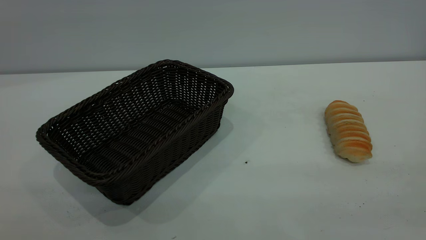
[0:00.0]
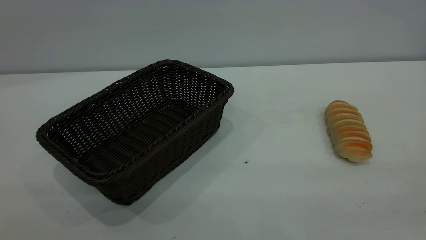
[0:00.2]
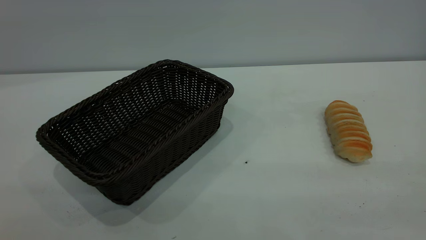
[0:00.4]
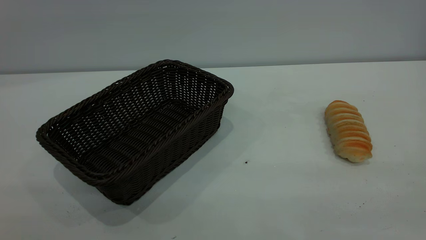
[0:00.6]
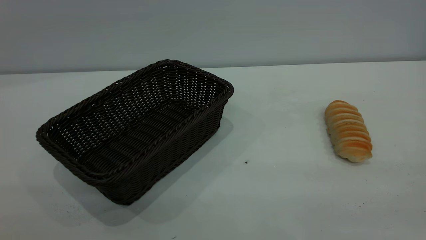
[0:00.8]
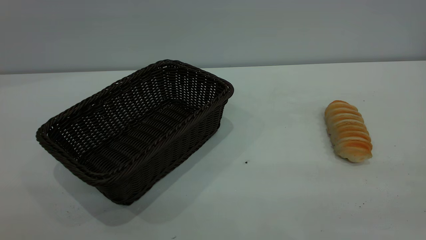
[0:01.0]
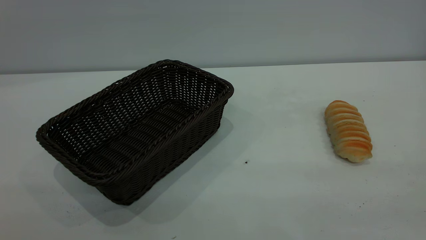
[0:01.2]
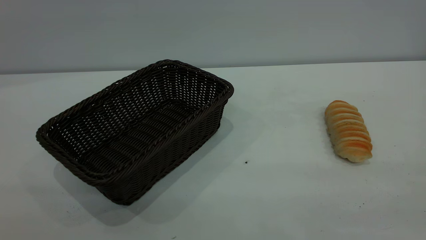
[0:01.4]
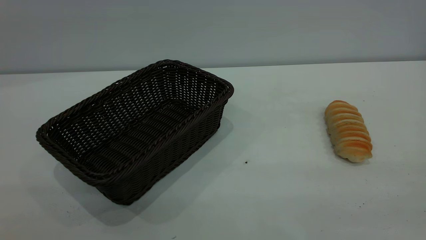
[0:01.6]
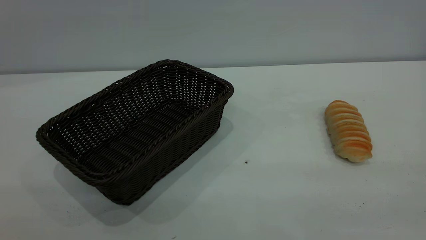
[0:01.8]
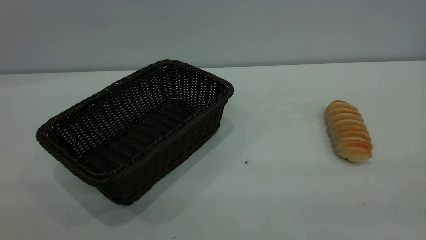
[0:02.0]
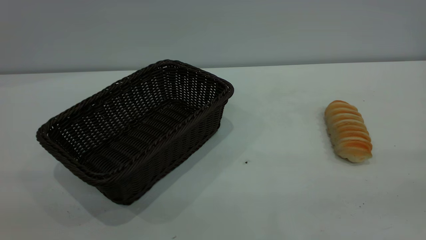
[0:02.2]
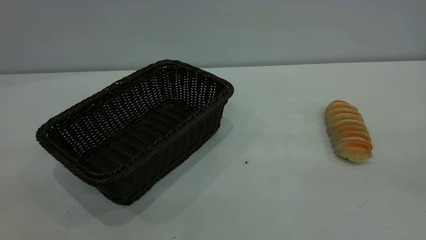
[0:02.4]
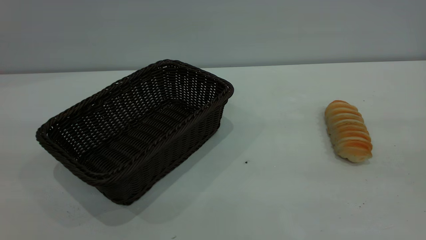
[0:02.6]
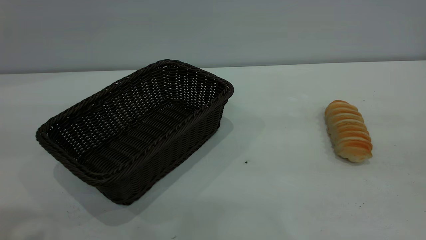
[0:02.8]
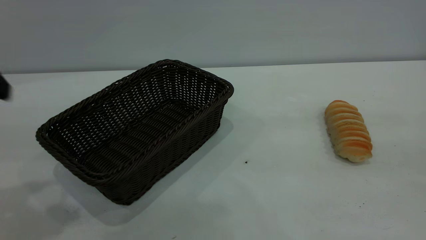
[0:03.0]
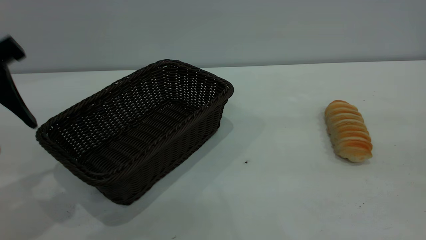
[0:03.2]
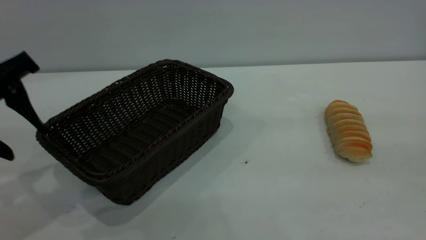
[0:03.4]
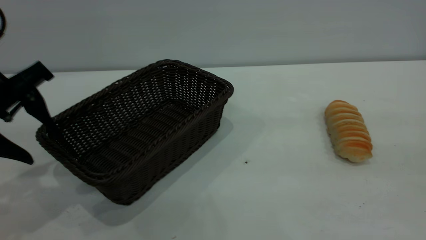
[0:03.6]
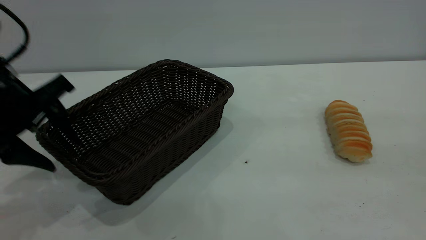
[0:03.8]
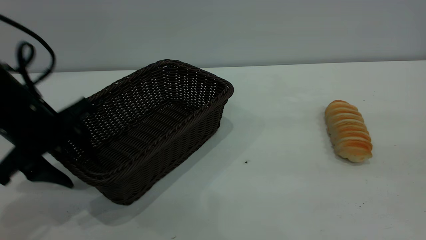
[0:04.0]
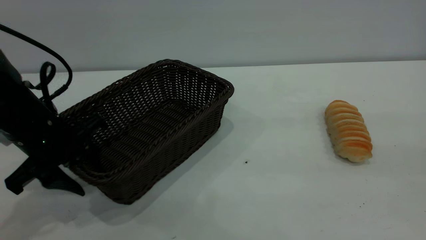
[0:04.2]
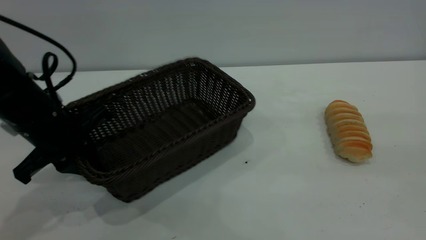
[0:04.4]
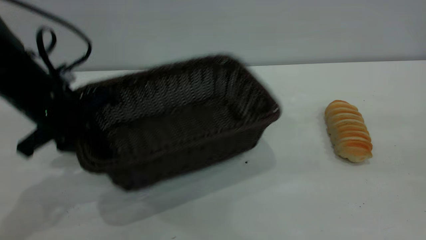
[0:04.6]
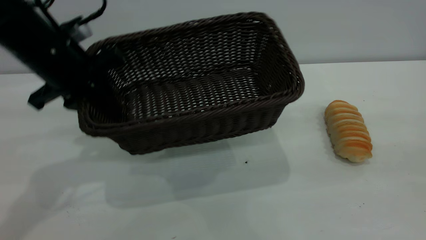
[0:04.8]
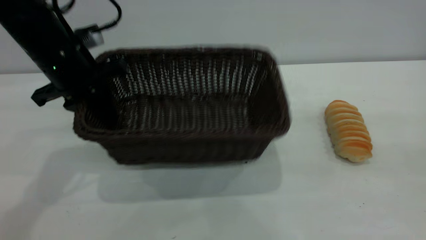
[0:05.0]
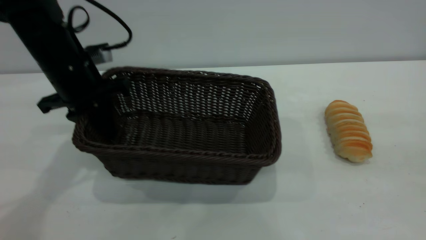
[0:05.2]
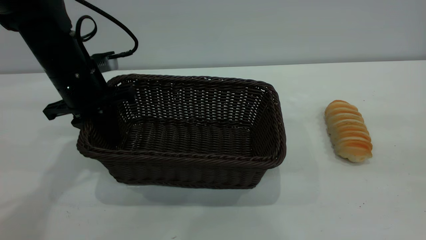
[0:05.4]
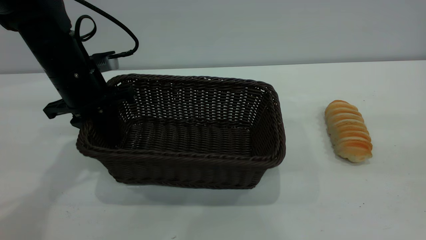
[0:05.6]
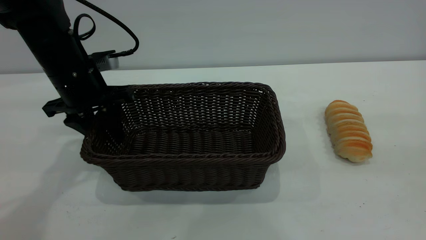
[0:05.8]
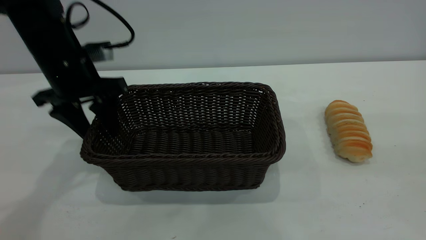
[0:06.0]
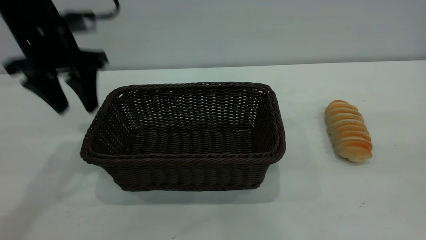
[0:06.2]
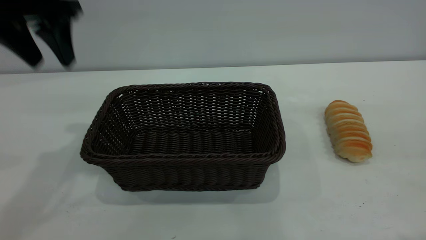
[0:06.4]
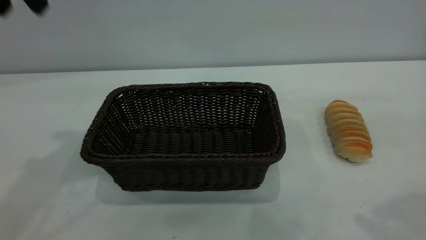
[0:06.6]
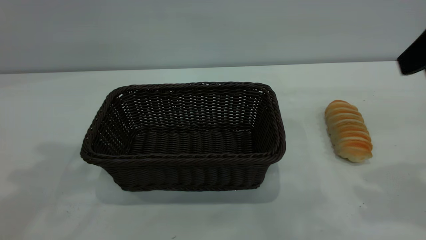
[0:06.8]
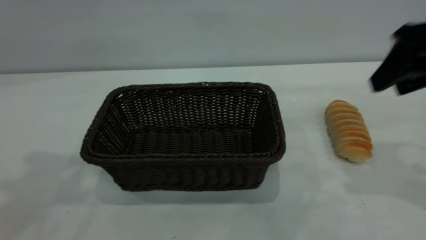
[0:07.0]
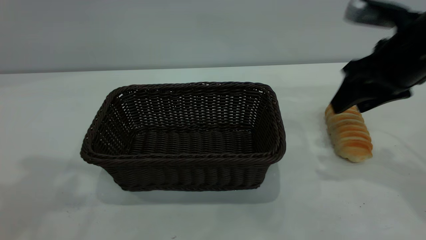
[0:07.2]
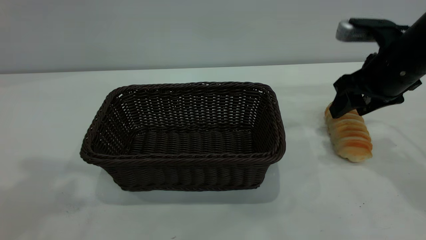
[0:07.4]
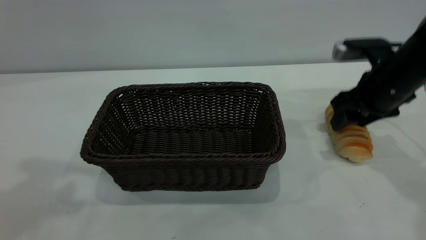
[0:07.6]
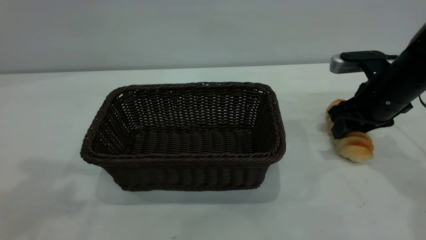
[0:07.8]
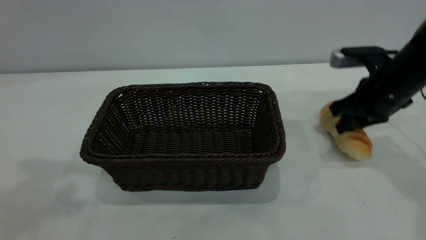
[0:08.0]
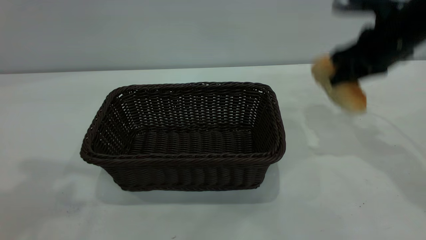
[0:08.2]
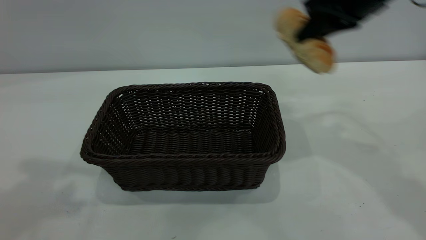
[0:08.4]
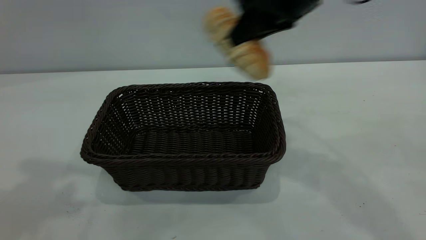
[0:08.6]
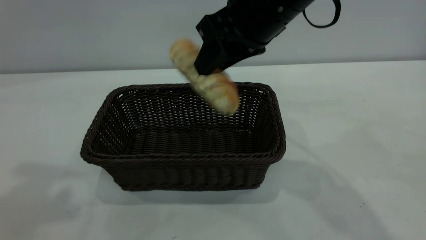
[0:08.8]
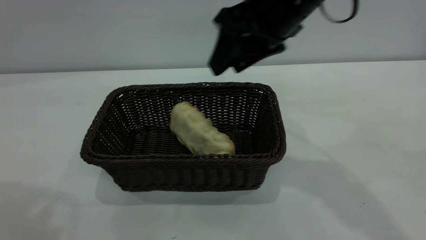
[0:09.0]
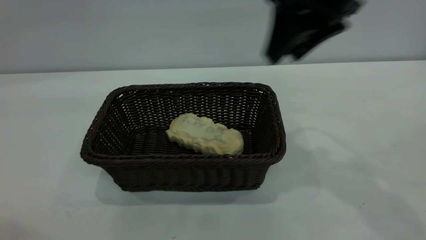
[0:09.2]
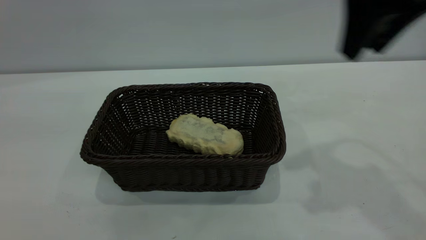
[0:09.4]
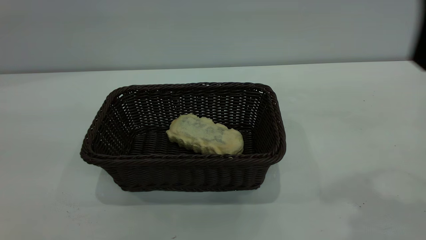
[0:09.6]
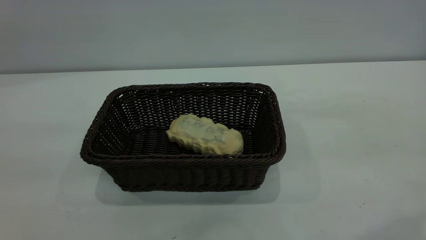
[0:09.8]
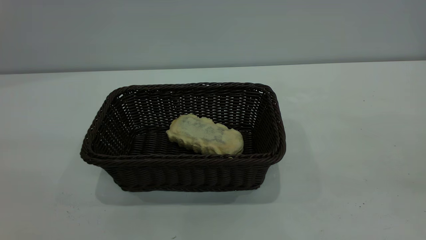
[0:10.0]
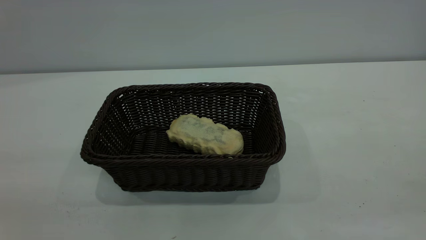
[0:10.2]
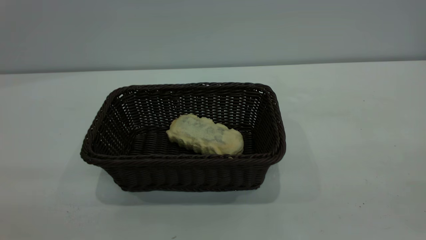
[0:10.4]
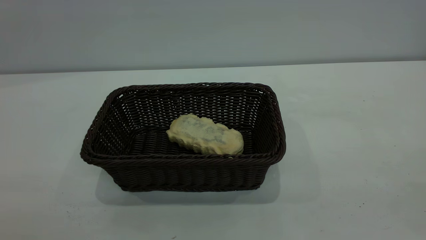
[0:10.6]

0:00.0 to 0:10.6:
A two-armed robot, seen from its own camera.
Task of the whole recording: One hand grasps the black basket and places it in the middle of the table, while the other hand picks up the long bread and puts it into the black basket.
Step, 0:00.0 to 0:06.2: Move the basket to the center of view.
Step, 0:08.4 to 0:09.2: place the bread into the basket.
0:00.0 to 0:01.6: Both grippers stay about where they are.
0:03.0 to 0:04.6: The left gripper travels downward and forward by some 15 cm, and closes up.
0:04.6 to 0:06.0: The left gripper is displaced forward by some 5 cm, and opens up.
0:06.0 to 0:07.6: The left gripper shifts about 30 cm upward and backward, while the right gripper goes roughly 40 cm forward and downward.
0:07.6 to 0:09.0: The left gripper goes approximately 5 cm backward, while the right gripper goes about 20 cm upward and to the left, and closes, then reopens.
0:09.0 to 0:10.6: The right gripper goes some 35 cm backward and to the right; the left gripper is displaced backward and downward by roughly 25 cm.

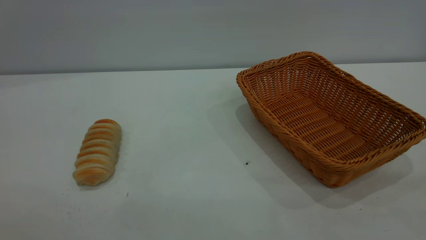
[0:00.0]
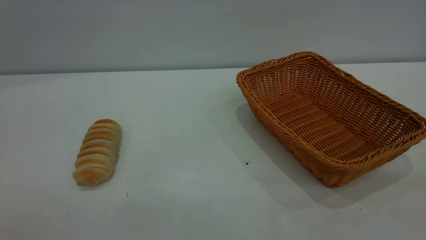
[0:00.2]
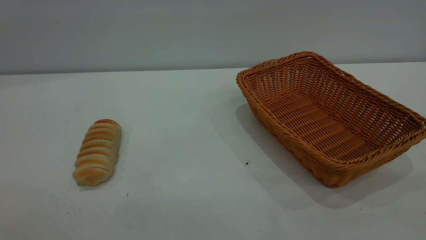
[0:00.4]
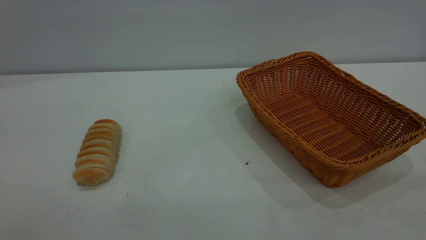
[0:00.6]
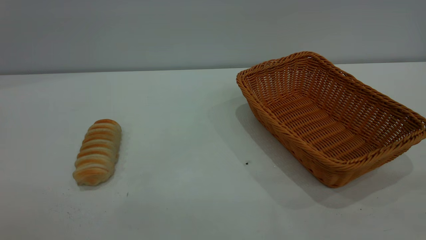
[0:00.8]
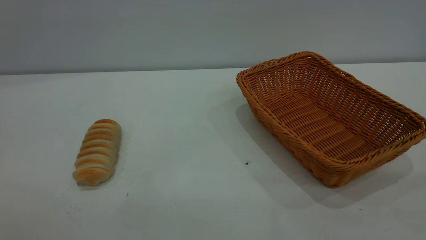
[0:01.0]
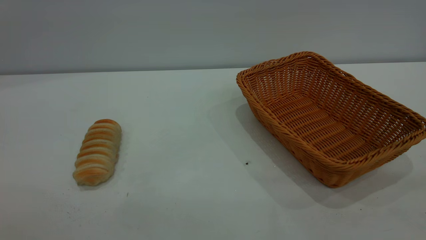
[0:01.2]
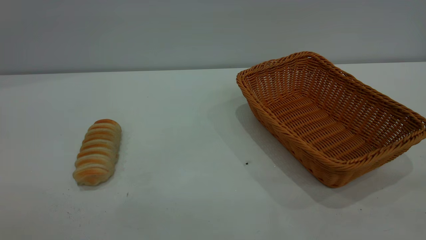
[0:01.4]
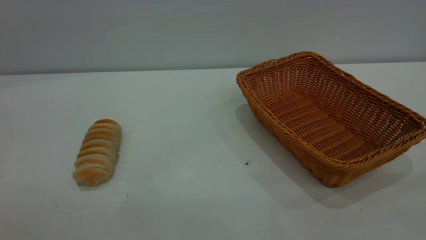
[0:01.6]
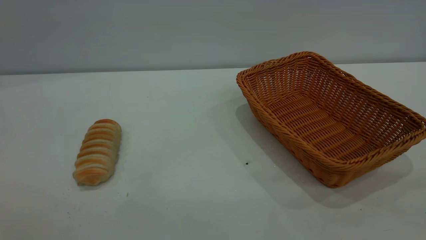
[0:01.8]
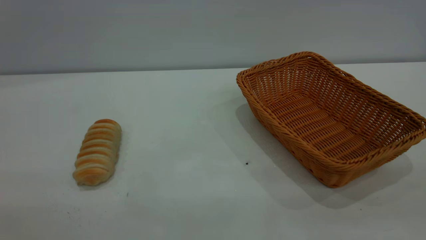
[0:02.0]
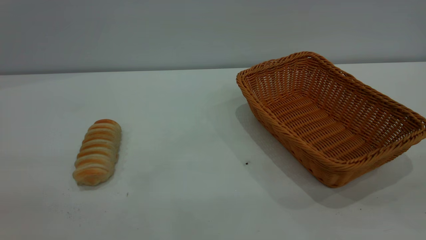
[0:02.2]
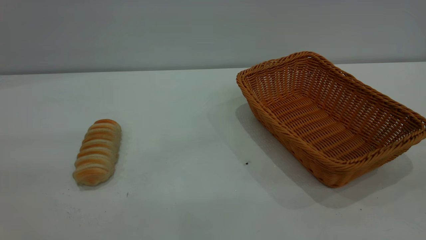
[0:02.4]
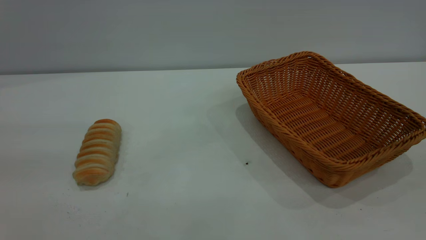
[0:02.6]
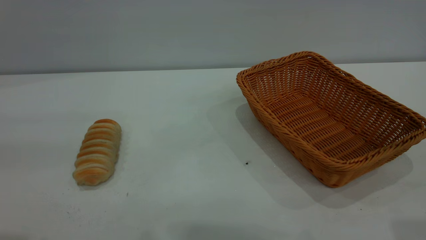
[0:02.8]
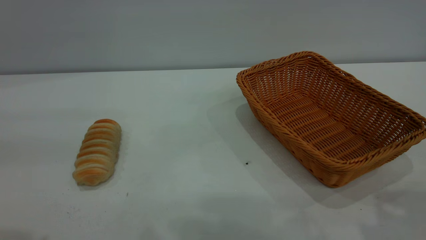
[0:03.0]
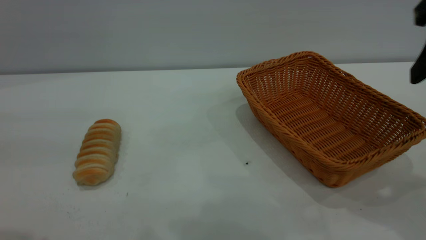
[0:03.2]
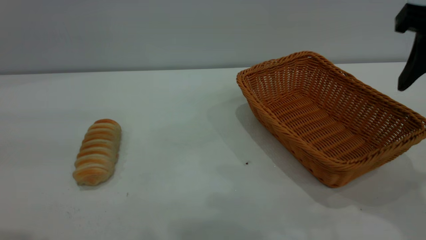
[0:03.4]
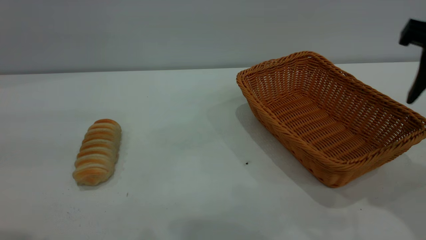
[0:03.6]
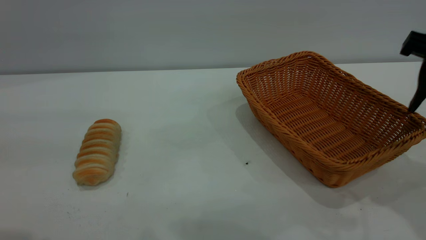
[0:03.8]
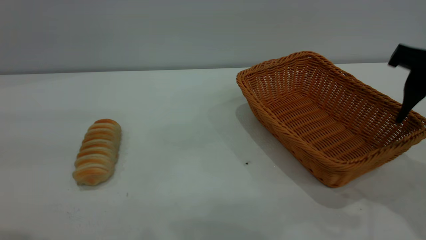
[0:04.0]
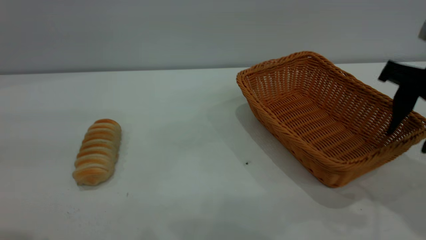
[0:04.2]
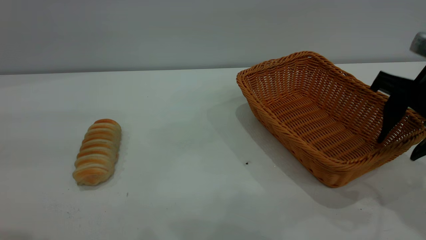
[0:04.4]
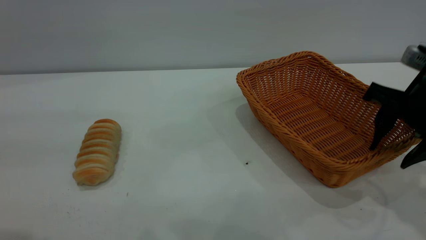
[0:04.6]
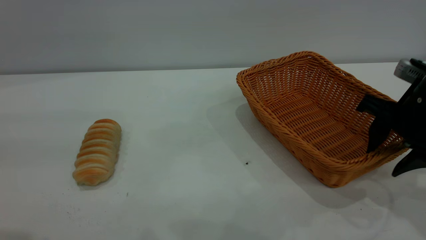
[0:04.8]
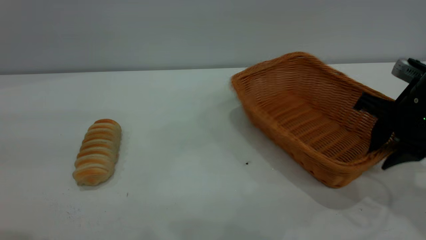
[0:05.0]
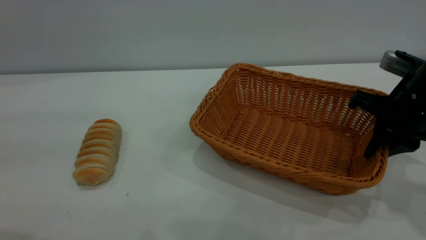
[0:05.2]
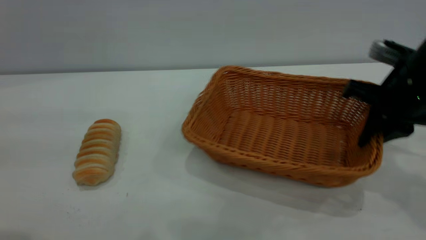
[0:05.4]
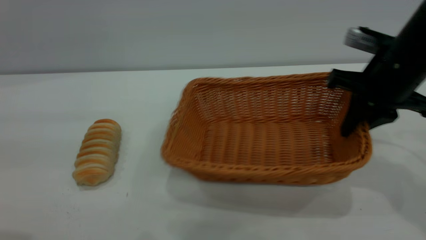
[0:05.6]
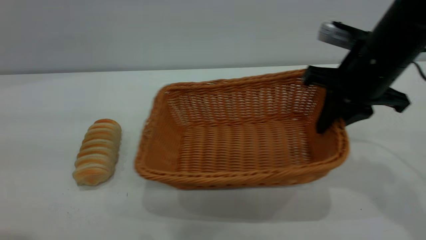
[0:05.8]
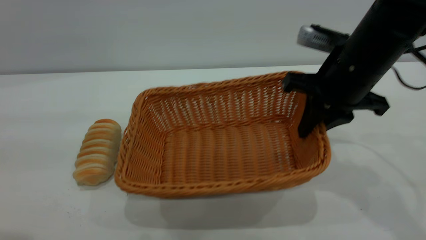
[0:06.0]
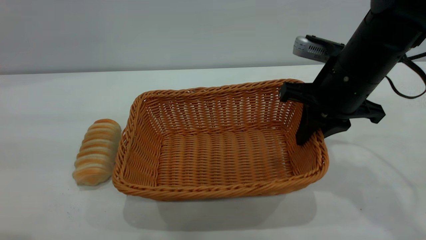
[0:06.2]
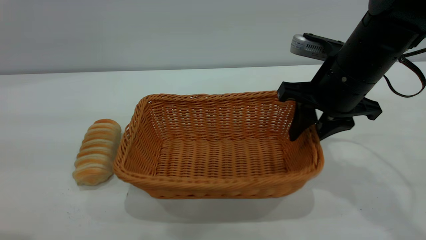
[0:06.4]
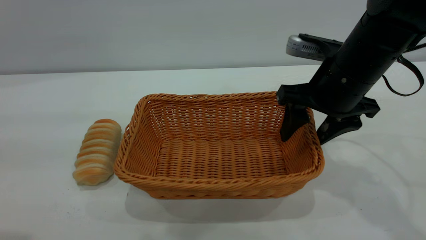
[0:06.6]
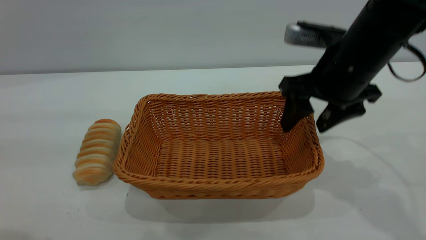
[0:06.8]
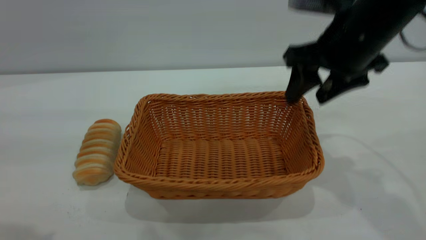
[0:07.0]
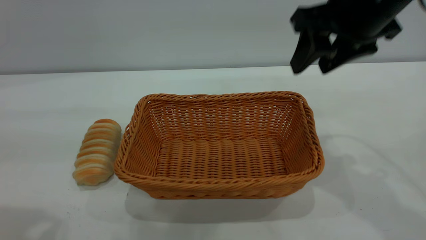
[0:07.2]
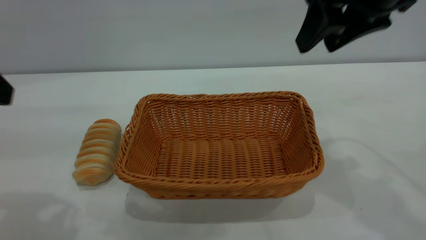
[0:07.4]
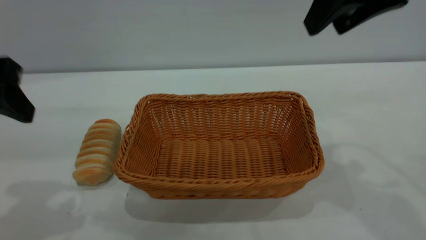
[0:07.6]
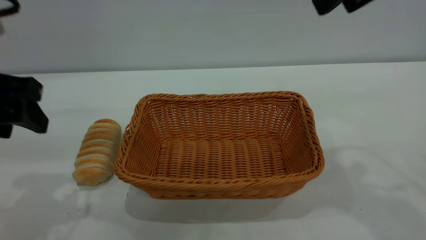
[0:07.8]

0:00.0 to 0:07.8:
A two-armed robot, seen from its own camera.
Task of the whole recording: One hand grasps the yellow basket and places it in the middle of the table, while the other hand picks up the long bread and puts it into the yellow basket.
Step, 0:00.0 to 0:07.0: Move the basket to the center of view.
0:00.0 to 0:01.6: Both grippers stay about where they are.
0:01.6 to 0:03.2: The right gripper travels forward by some 25 cm.
0:03.2 to 0:04.6: The right gripper is displaced downward and forward by approximately 15 cm.
0:04.6 to 0:06.2: The right gripper heads to the left, covering roughly 10 cm, and closes its fingers.
0:06.2 to 0:07.8: The left gripper travels downward and forward by about 15 cm, while the right gripper moves upward, roughly 20 cm, and opens its fingers.
